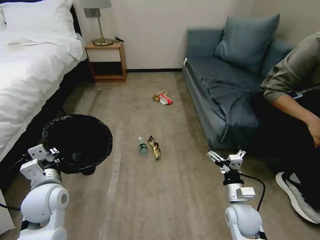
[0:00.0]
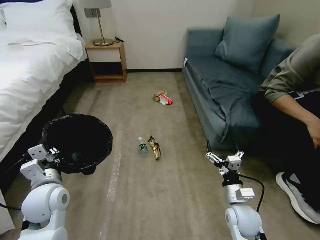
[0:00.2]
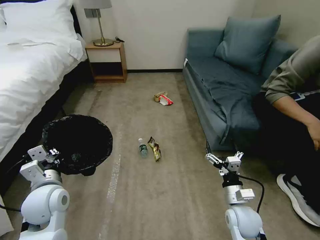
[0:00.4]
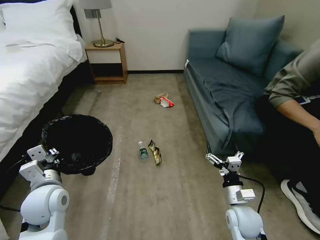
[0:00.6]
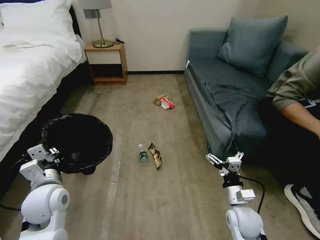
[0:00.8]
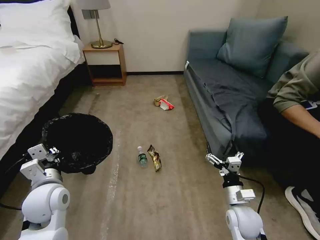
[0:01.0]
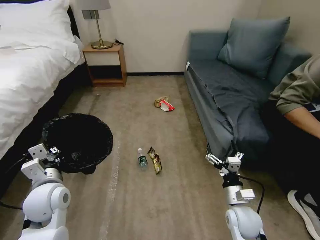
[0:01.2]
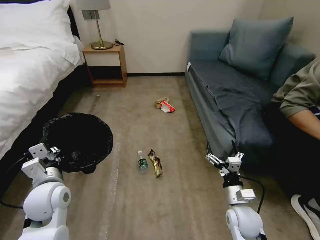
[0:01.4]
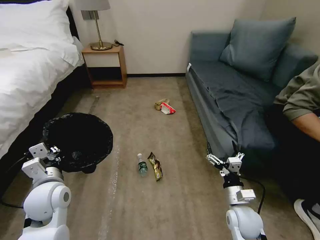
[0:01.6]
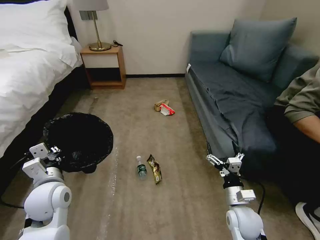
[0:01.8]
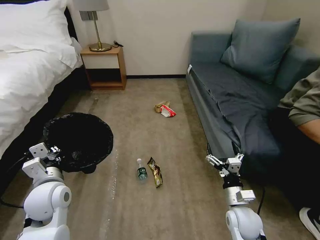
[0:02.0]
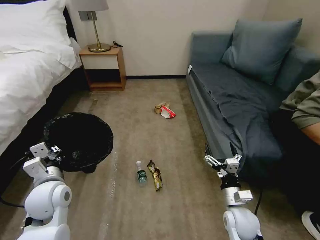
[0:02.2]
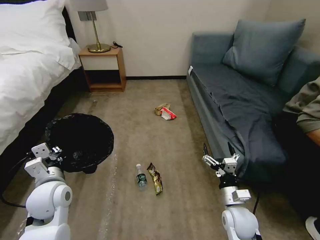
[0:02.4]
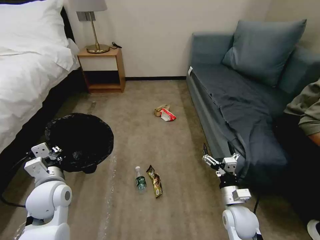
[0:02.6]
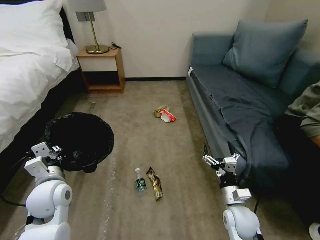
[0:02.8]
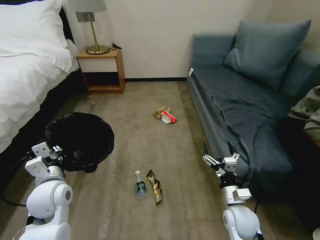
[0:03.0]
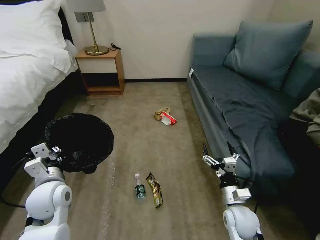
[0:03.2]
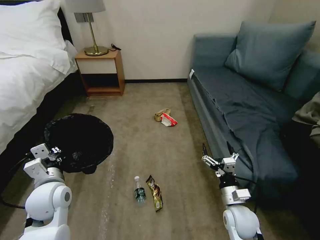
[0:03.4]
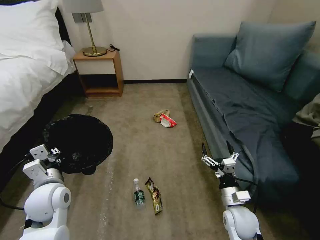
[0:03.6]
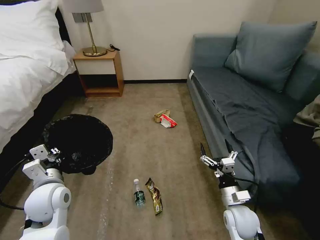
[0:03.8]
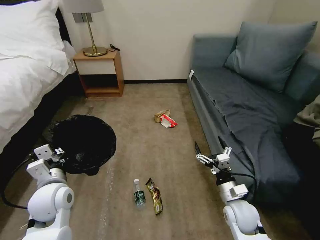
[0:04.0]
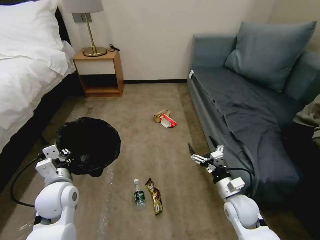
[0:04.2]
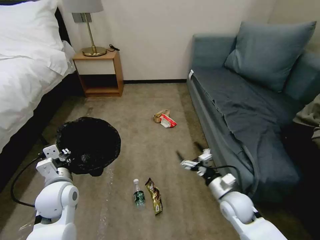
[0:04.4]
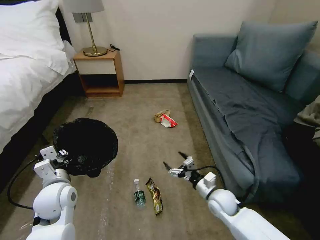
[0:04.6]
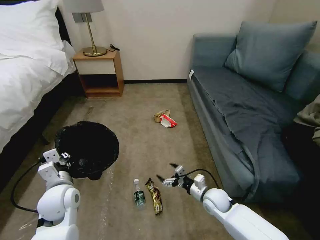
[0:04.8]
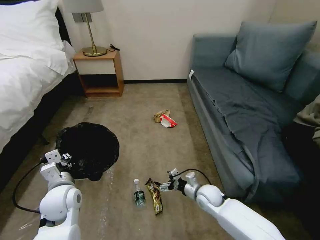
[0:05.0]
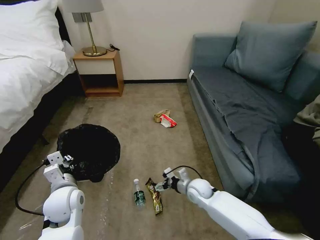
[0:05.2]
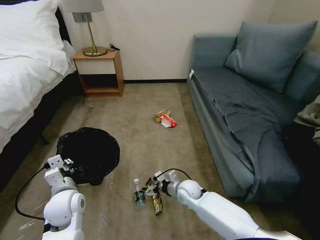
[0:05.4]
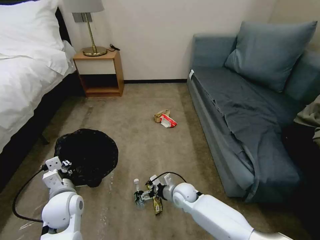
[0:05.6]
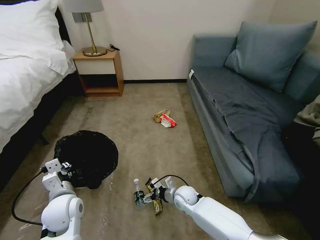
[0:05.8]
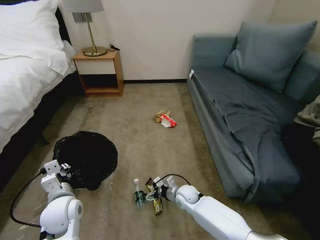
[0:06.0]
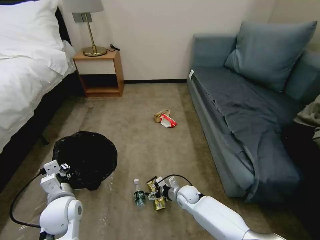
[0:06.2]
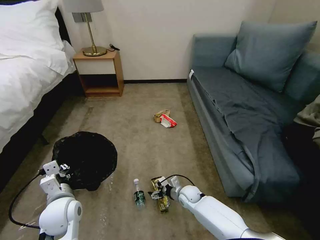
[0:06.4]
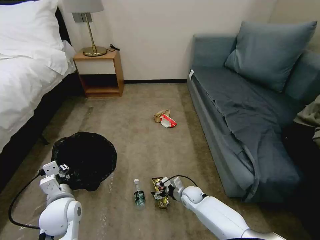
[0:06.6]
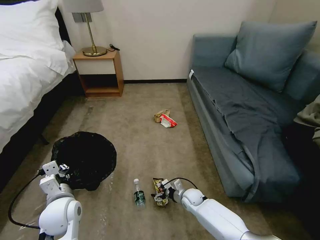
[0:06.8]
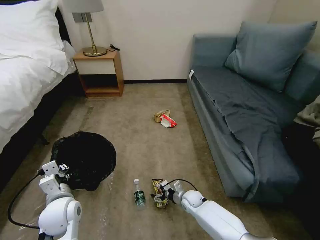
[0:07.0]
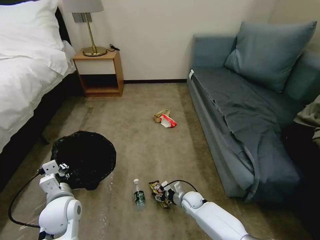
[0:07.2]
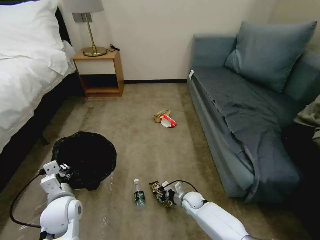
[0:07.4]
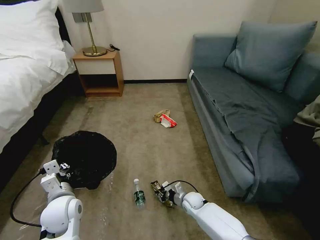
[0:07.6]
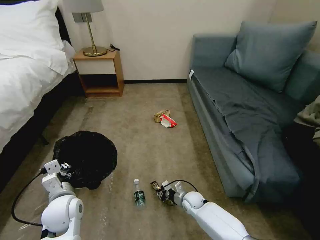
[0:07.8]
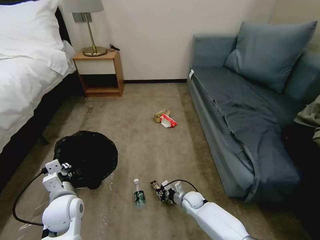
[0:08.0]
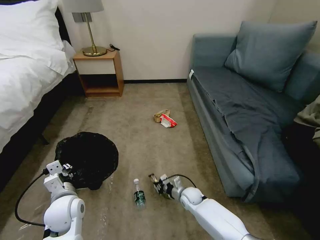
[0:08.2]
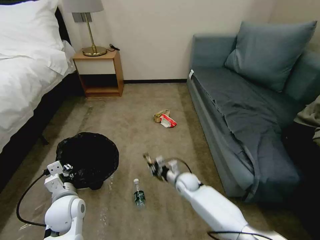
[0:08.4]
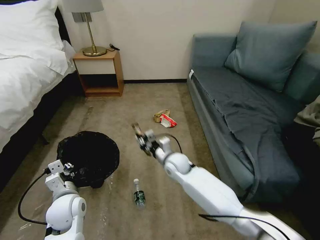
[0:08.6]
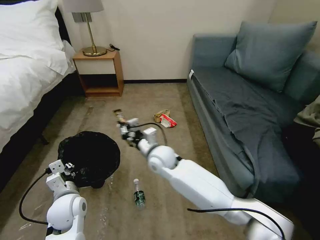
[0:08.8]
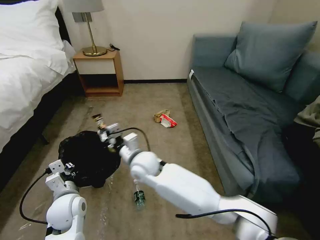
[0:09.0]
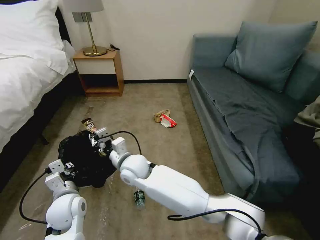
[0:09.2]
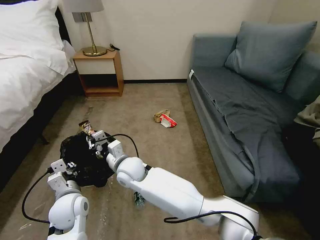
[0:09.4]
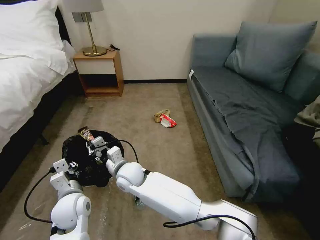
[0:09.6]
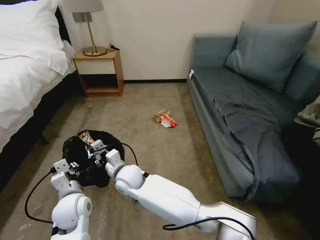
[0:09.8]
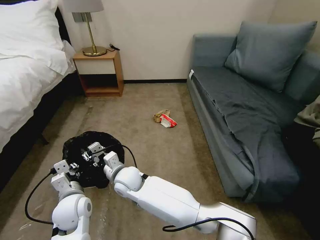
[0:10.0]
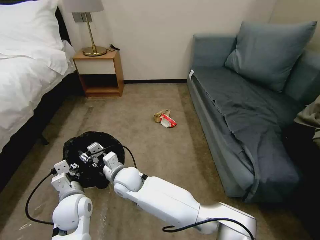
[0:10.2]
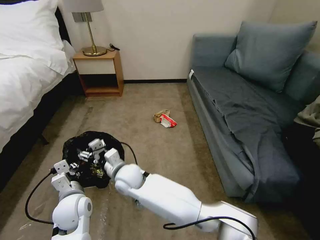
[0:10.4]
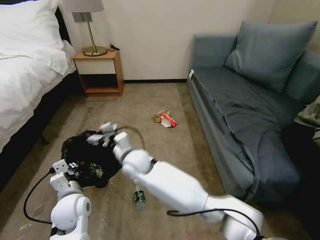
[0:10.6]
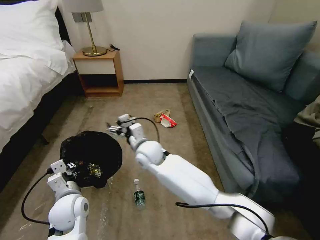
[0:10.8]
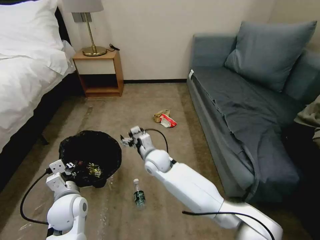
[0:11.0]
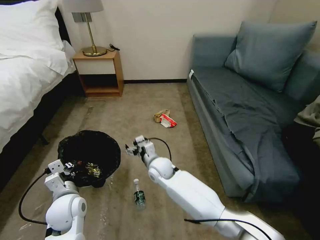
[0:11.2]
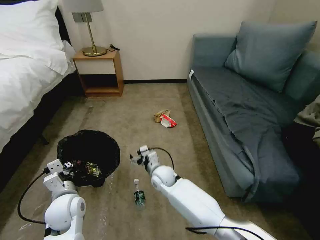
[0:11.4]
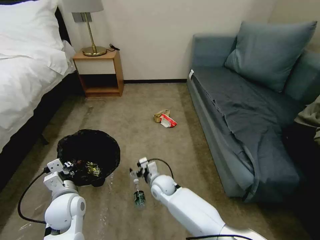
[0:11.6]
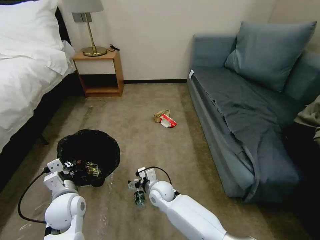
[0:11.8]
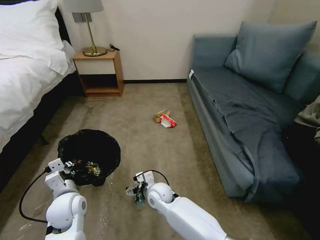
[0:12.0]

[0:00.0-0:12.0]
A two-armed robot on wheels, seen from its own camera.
Task of the whole recording: Pick up the trash bin, then pick up the garbage on the floor and place it into the trash bin.
0:04.4 to 0:06.0: The right gripper heads to the left, downward and forward, covering roughly 20 cm.
0:06.0 to 0:07.6: The right gripper goes some 5 cm downward, and closes its fingers.
0:07.6 to 0:09.0: The right gripper goes some 35 cm upward and to the left.
0:09.0 to 0:10.4: The right gripper goes some 5 cm to the left, and opens its fingers.
0:10.4 to 0:12.0: The right gripper is displaced to the right and downward by some 15 cm.

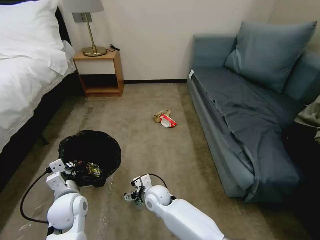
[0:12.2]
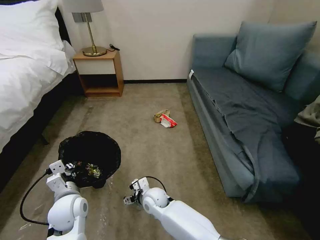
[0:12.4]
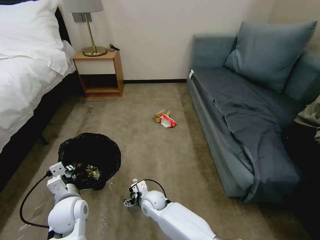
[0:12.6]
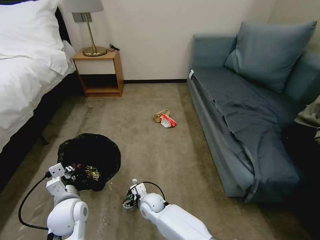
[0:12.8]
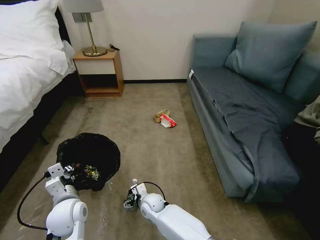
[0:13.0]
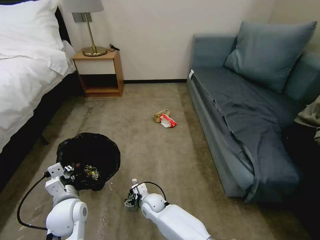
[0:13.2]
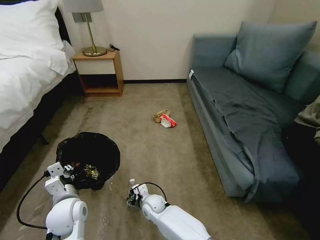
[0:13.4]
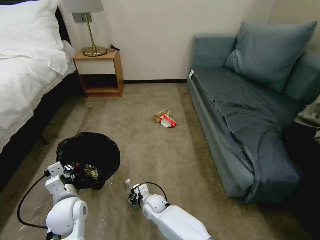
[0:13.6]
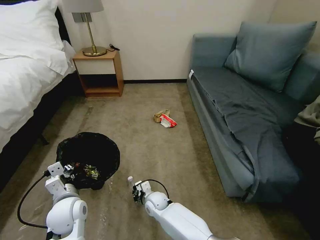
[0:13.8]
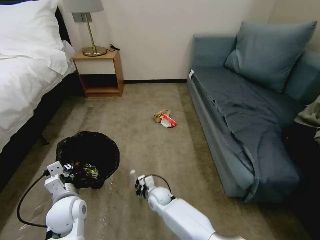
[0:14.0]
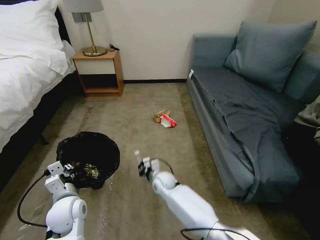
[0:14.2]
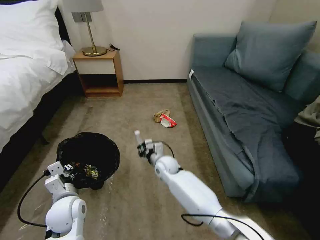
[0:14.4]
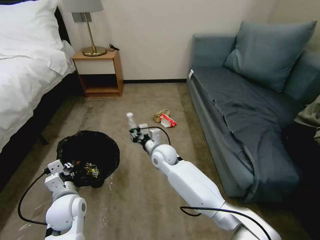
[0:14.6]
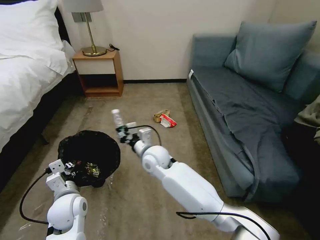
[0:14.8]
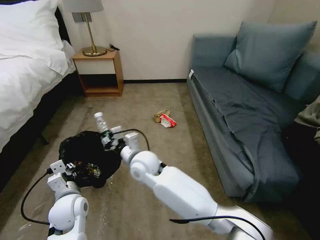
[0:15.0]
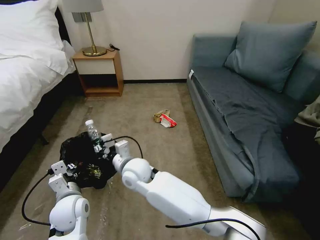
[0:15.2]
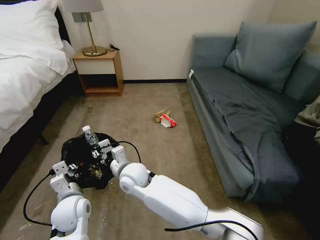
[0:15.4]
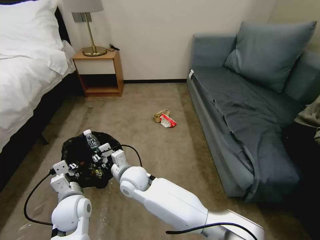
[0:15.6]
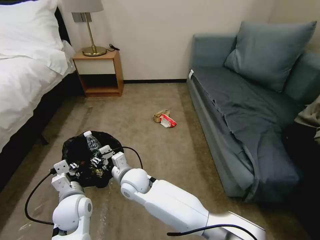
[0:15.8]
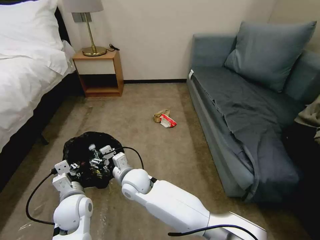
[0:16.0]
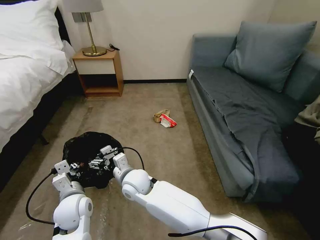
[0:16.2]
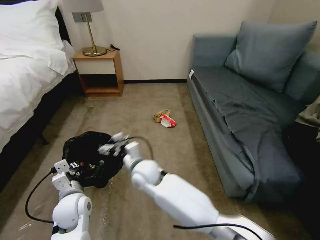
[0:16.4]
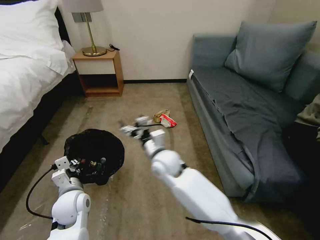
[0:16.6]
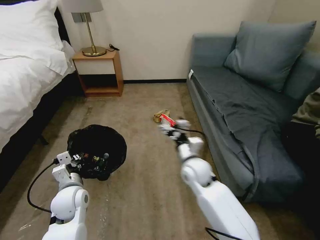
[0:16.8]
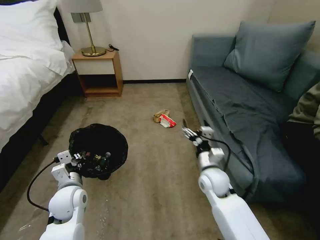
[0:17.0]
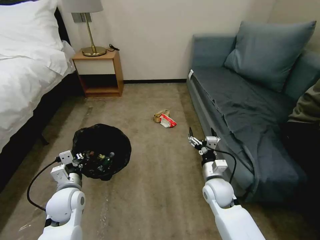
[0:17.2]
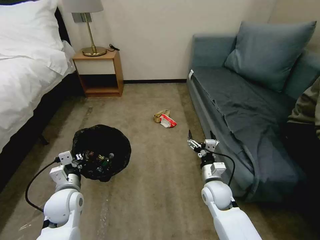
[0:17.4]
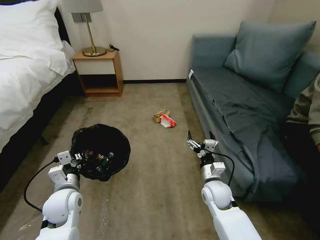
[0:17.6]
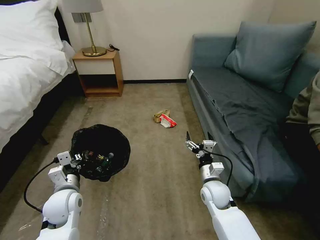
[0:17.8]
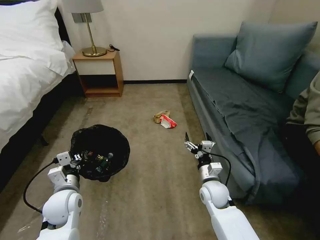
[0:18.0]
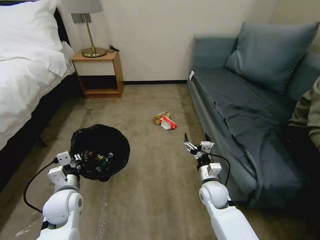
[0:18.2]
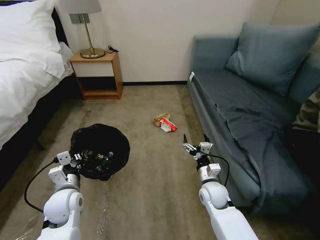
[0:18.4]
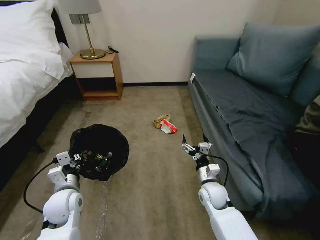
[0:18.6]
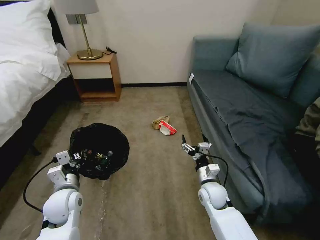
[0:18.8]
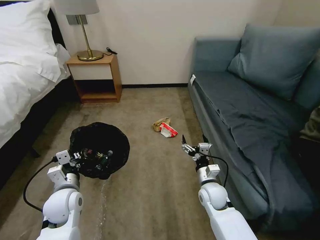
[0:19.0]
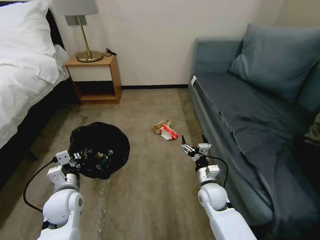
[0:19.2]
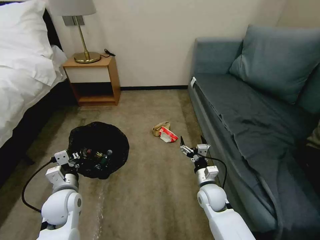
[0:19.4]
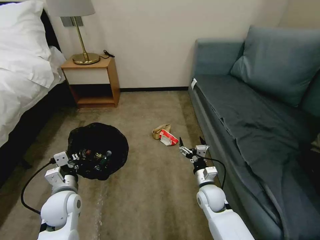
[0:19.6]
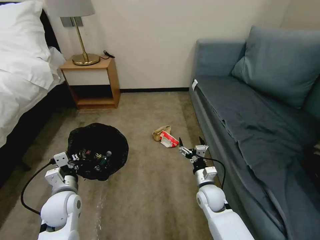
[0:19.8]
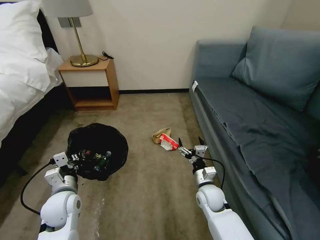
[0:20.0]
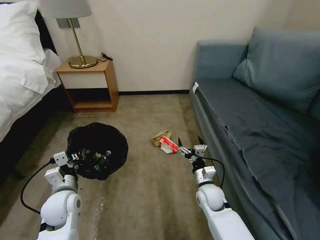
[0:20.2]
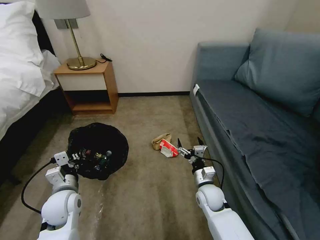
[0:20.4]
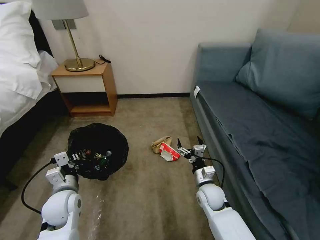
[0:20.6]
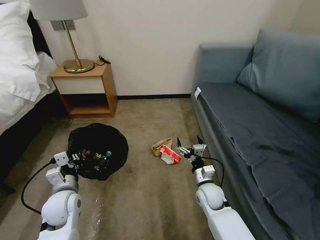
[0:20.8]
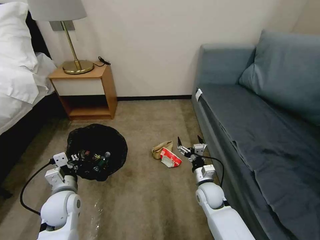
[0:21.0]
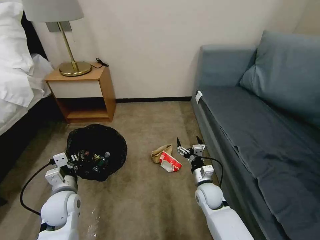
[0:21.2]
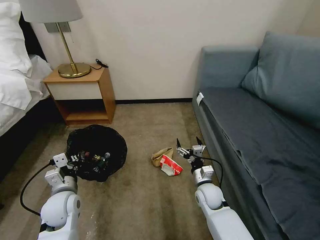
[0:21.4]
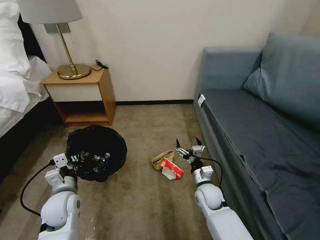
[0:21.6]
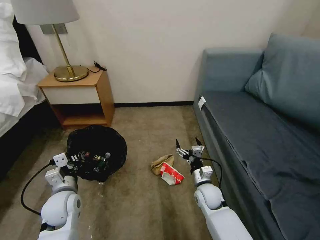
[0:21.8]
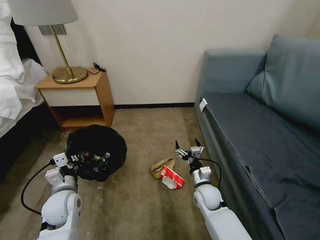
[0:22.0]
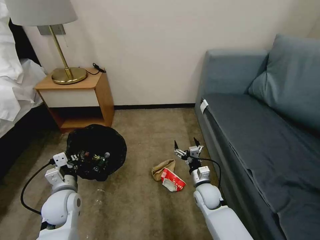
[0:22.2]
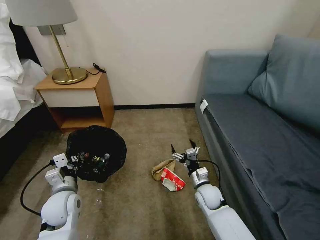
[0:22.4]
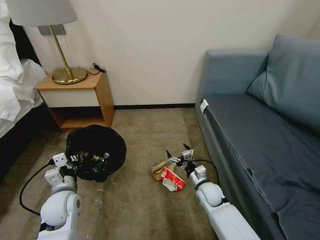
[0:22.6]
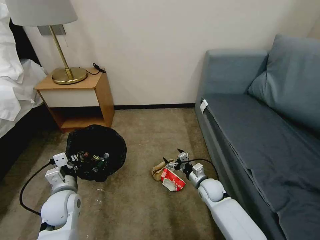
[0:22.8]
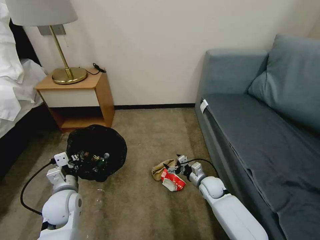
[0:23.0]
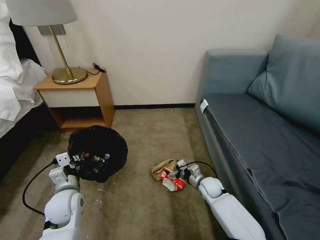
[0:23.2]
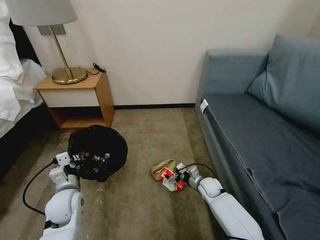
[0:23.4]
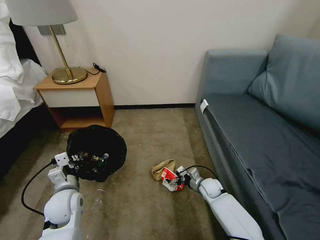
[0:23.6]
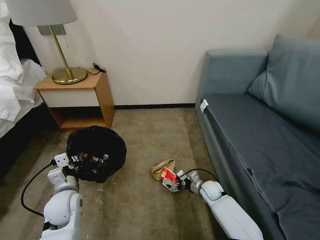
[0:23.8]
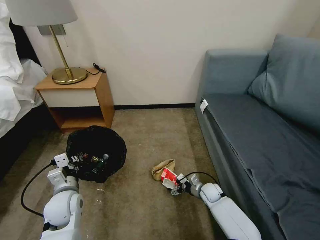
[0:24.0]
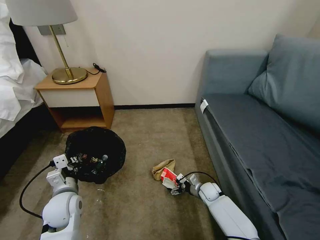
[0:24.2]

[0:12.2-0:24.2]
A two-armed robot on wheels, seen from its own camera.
Task of the whole recording: Pick up the trash bin, then pick up the garbage on the floor and place it into the trash bin.
0:12.2 to 0:13.8: The right gripper heads downward, covering approximately 10 cm, and closes.
0:13.8 to 0:15.2: The right gripper travels upward by approximately 25 cm.
0:15.2 to 0:16.6: The right gripper is displaced to the right by roughly 10 cm, and opens.
0:16.6 to 0:18.2: The right gripper travels to the right and downward by some 20 cm.
0:21.2 to 0:22.6: The grippers make only small movements.
0:22.6 to 0:24.2: The right gripper moves downward, about 10 cm.
